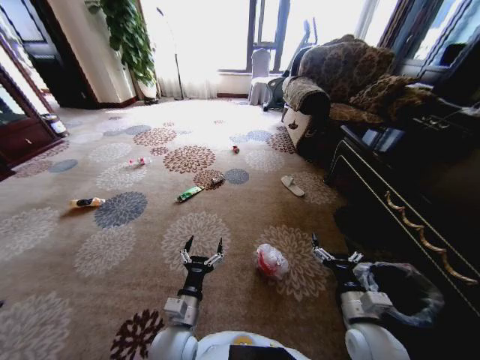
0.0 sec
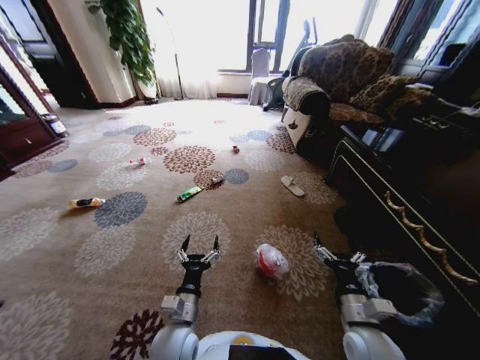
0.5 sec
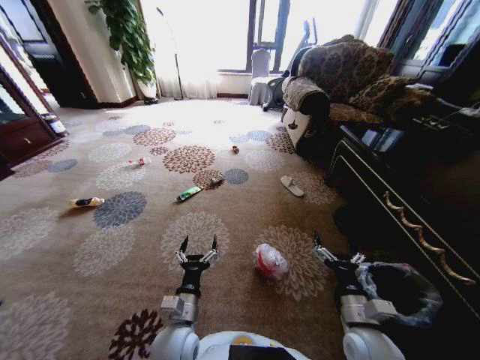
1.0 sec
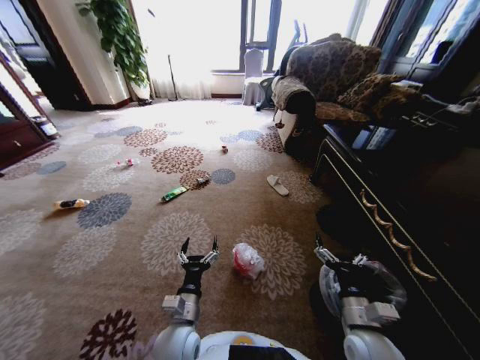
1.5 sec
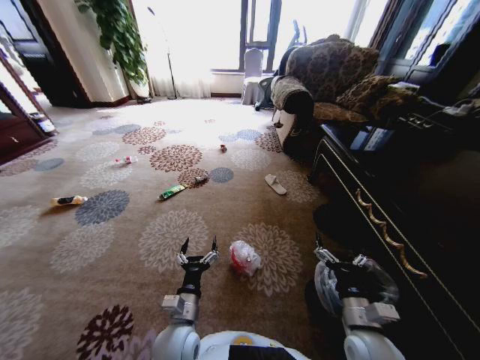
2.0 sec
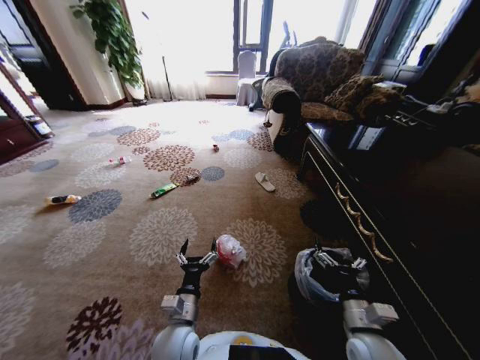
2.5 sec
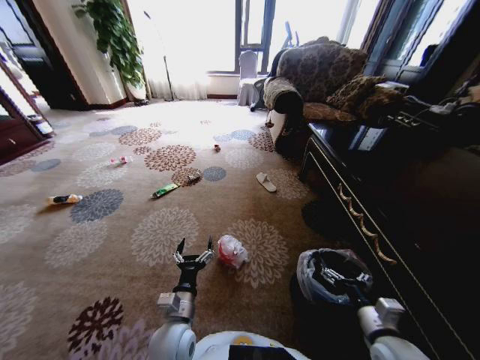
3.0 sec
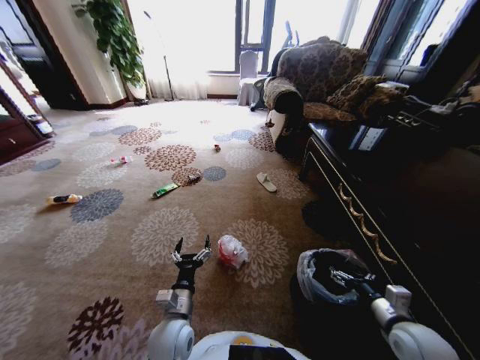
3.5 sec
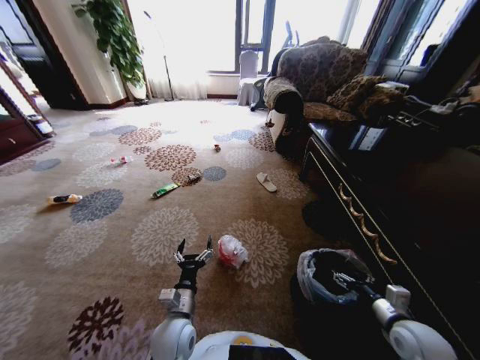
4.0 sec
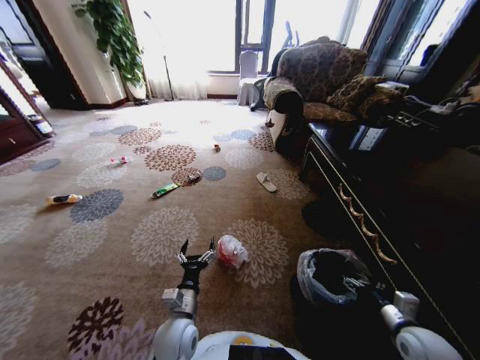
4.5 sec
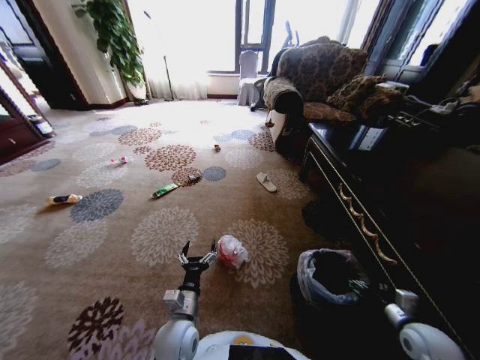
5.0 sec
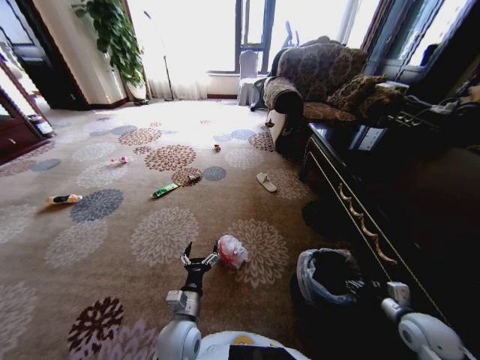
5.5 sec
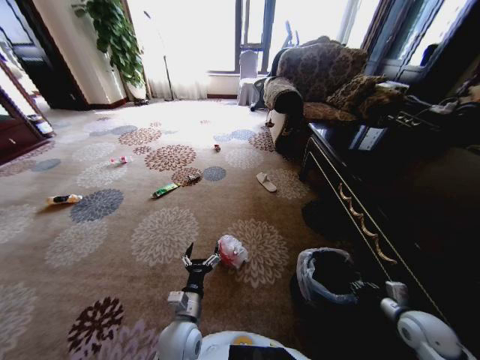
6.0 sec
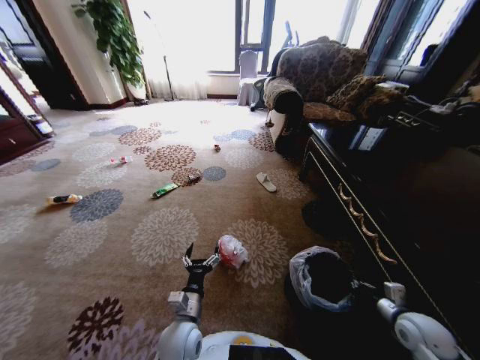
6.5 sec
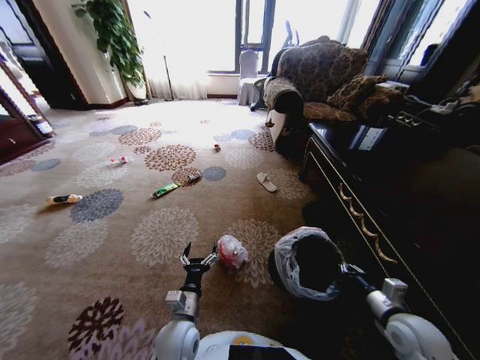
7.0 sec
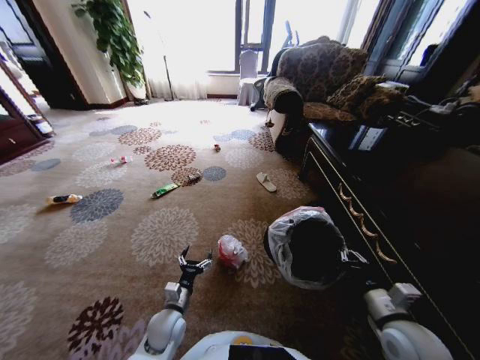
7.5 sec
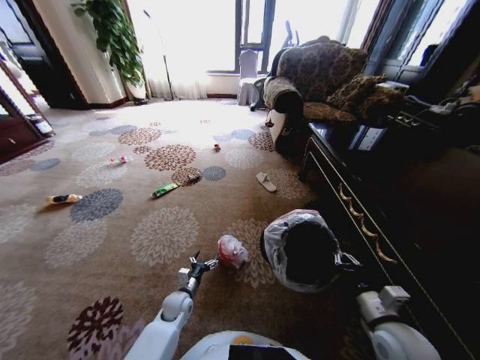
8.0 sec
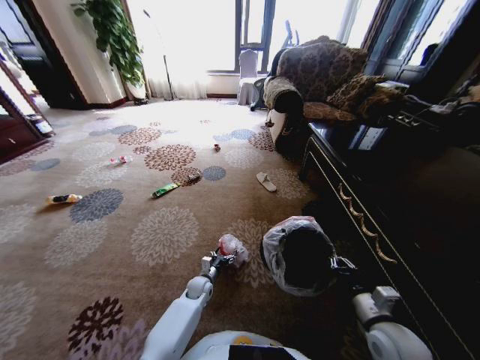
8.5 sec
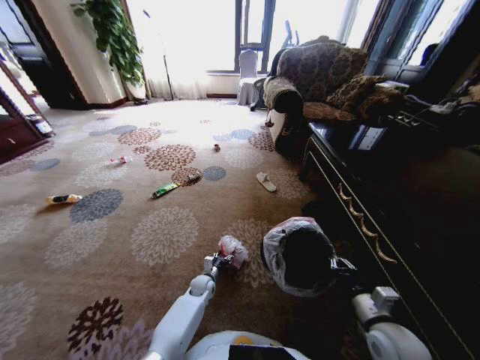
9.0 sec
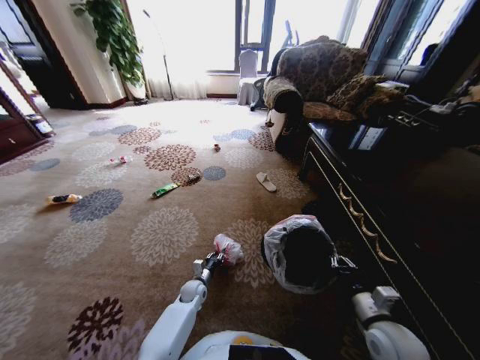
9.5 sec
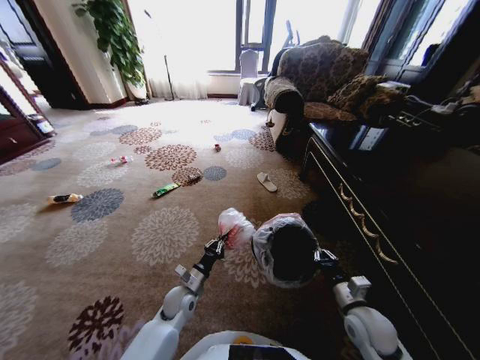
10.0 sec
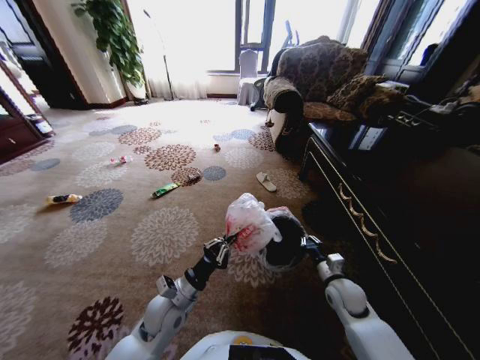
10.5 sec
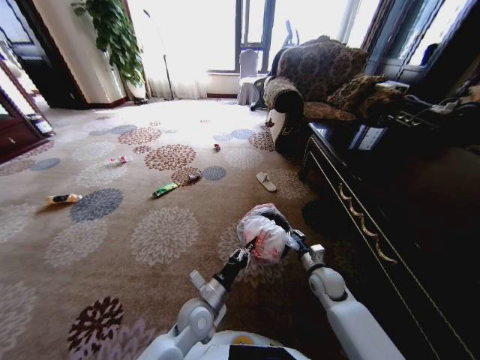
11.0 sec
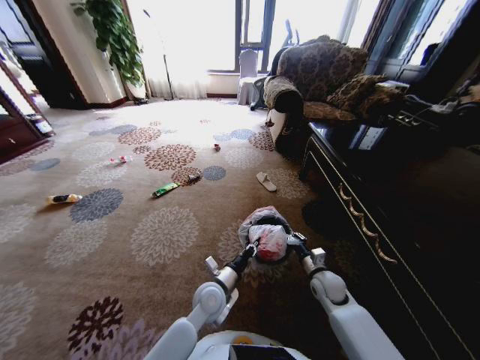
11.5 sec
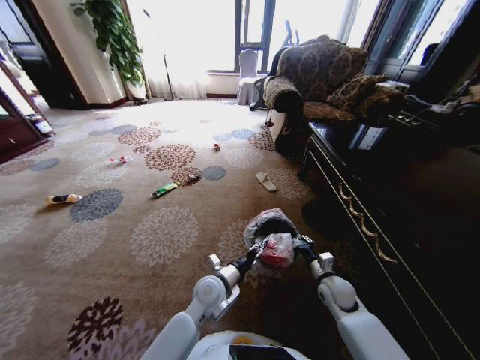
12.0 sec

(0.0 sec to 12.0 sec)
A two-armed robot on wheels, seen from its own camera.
Task of the whole recording: Pick up the trash from the ground and place it into the trash bin.
2.0 sec - 4.0 sec: The right gripper shifts approximately 15 cm to the right.
4.0 sec - 6.0 sec: The right gripper is displaced to the right by roughly 5 cm, and closes its fingers.
6.0 sec - 8.0 sec: The right gripper shifts about 15 cm to the left and upward; the left gripper heads downward, forward and to the left, covering about 20 cm.
8.0 sec - 10.0 sec: The right gripper travels downward by approximately 5 cm. Meanwhile the left gripper closes its fingers.
10.0 sec - 12.0 sec: The right gripper shifts about 10 cm forward and downward, while the left gripper travels upward and to the right by some 15 cm, and opens up.

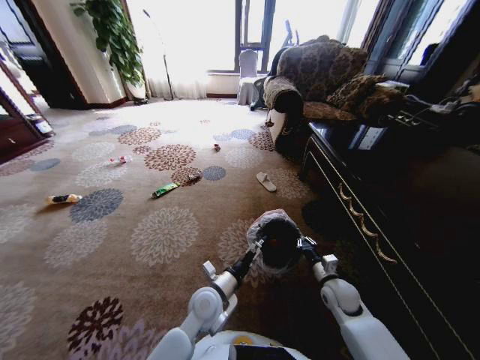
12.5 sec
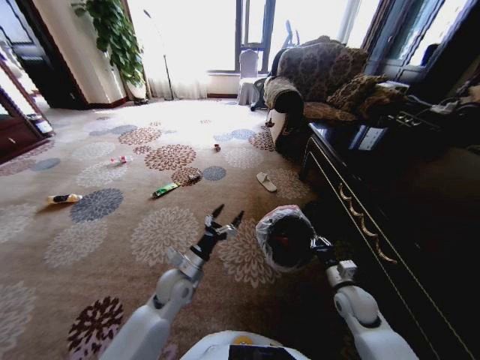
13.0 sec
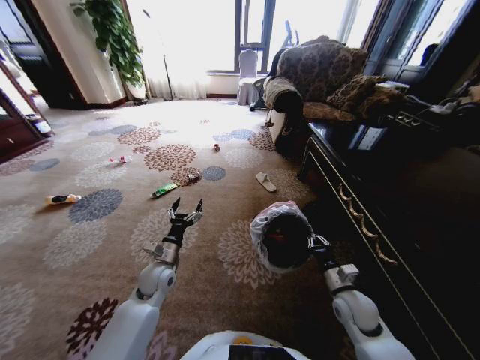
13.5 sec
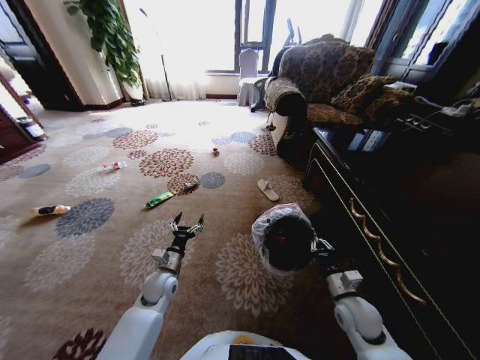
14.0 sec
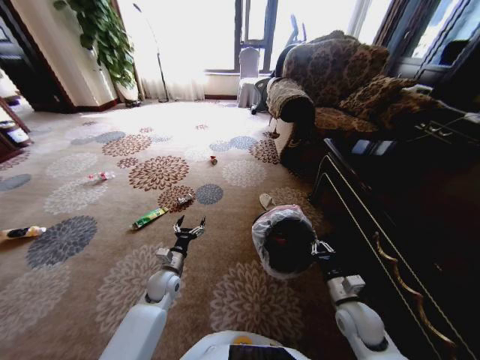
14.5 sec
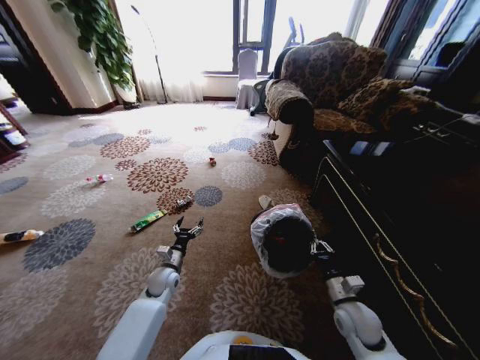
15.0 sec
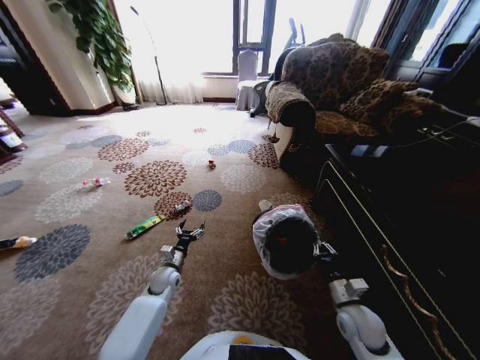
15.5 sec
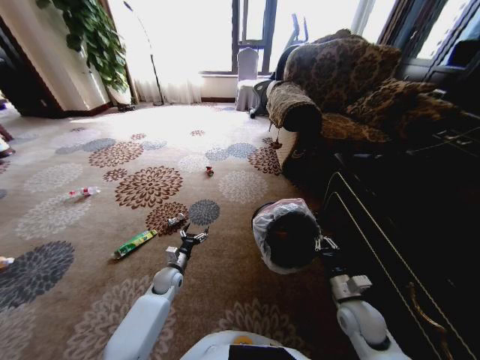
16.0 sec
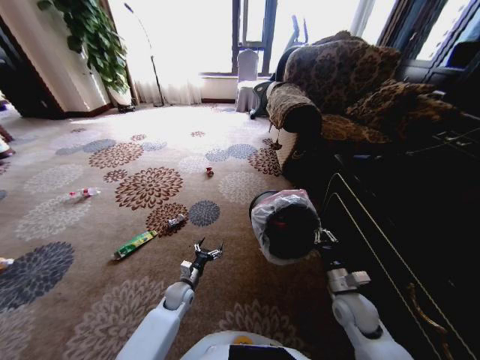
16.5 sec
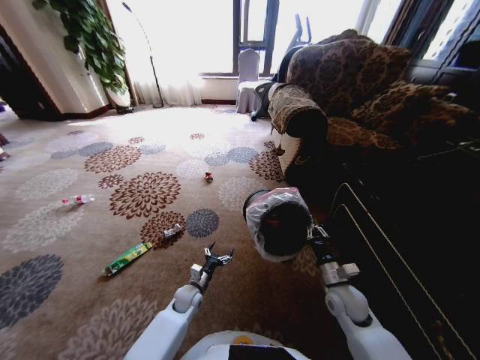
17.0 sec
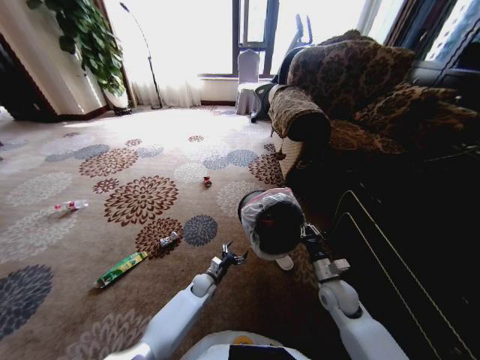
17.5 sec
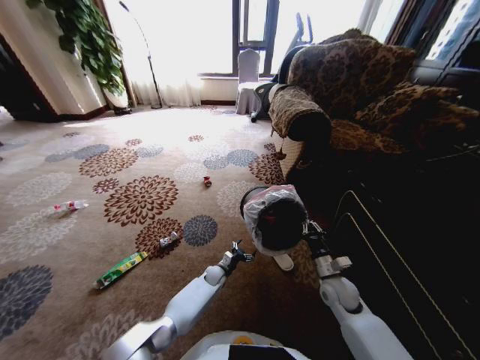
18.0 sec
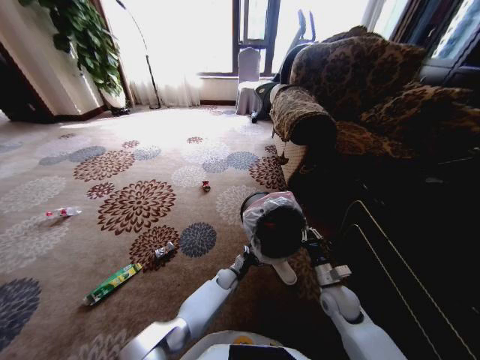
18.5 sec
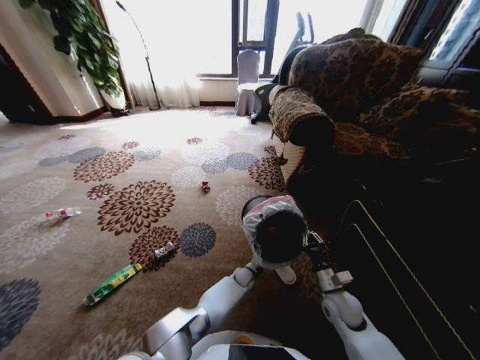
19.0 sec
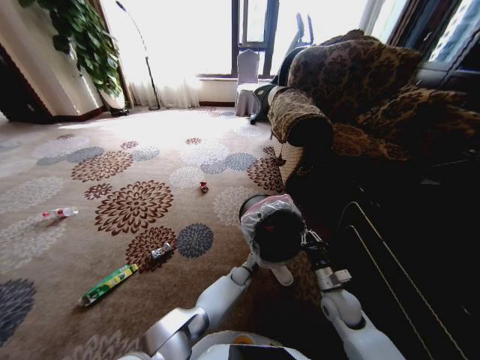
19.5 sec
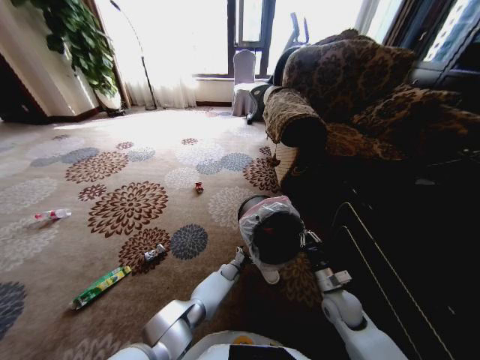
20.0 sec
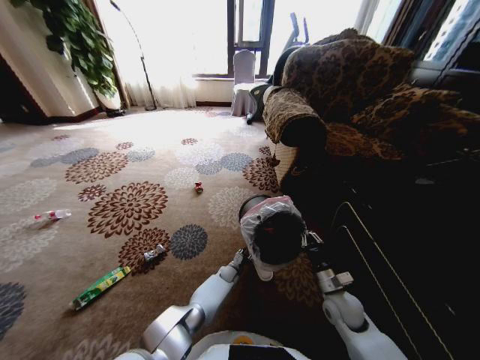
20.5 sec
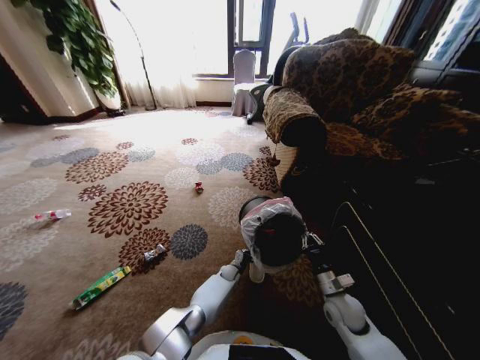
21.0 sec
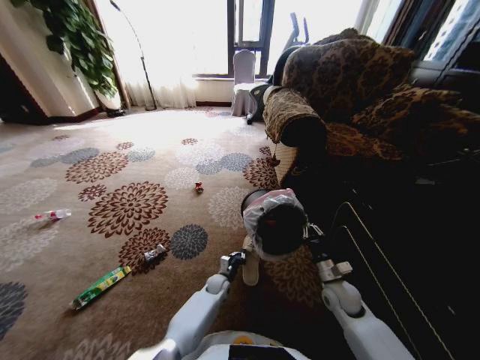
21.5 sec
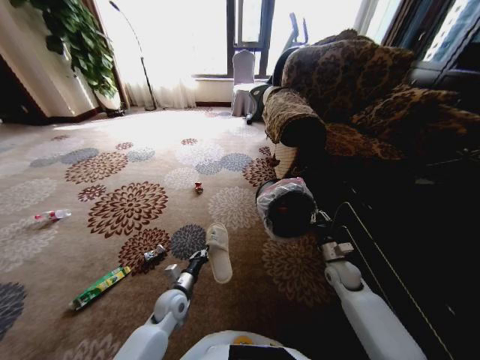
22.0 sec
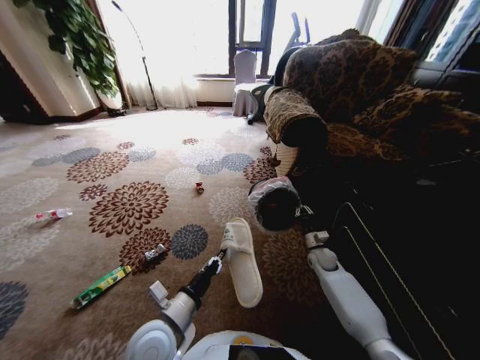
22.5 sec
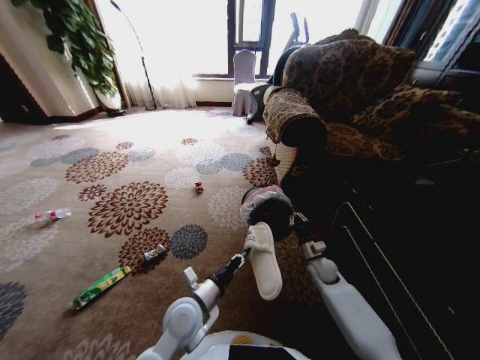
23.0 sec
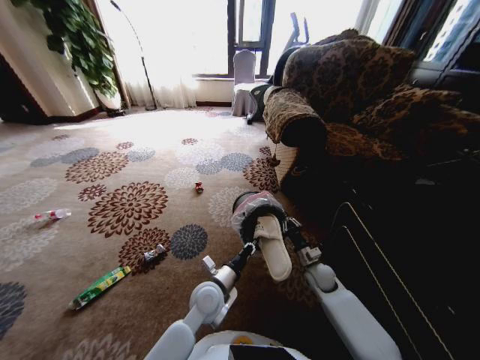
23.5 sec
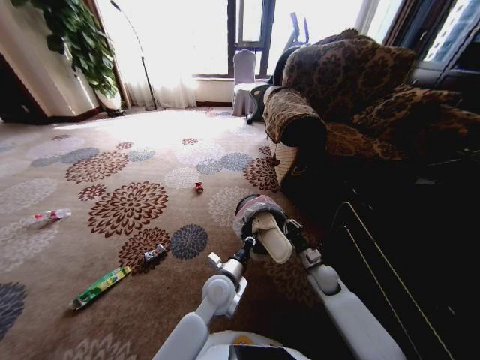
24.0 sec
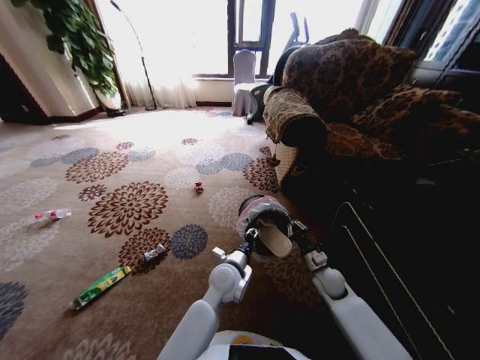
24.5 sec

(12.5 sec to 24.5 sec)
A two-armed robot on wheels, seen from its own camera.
Task of the whole recording: Pick up the trash from the ground and place it into the trash bin.
12.5 sec - 14.5 sec: The left gripper shifts approximately 15 cm to the left and forward, while the right gripper goes roughly 5 cm backward.
14.5 sec - 16.5 sec: The left gripper heads downward, covering approximately 10 cm.
16.5 sec - 18.5 sec: The left gripper moves to the right, forward and downward, roughly 20 cm.
18.5 sec - 20.5 sec: The left gripper moves approximately 10 cm to the right and comes back, and closes.
20.5 sec - 22.5 sec: The right gripper shifts some 15 cm forward, while the left gripper shifts some 40 cm upward and backward, and closes its fingers.
22.5 sec - 24.5 sec: The right gripper is displaced backward by roughly 10 cm. Meanwhile the left gripper goes some 20 cm forward and to the right, and opens.

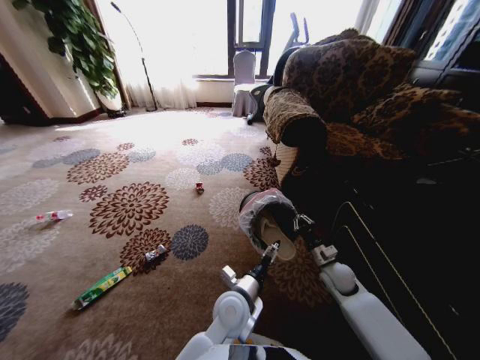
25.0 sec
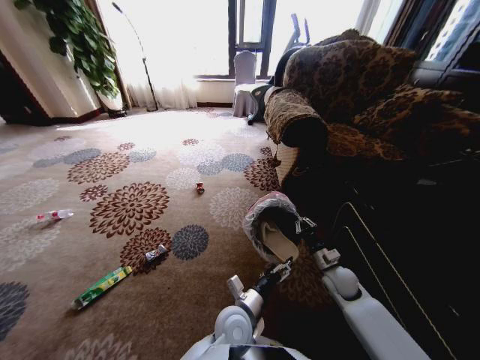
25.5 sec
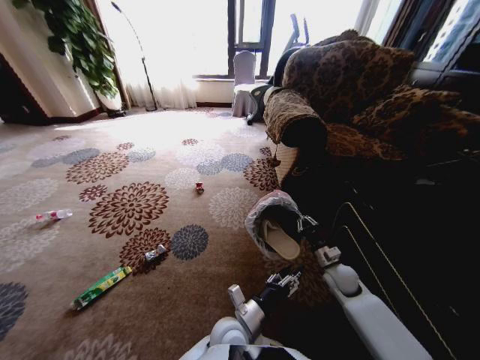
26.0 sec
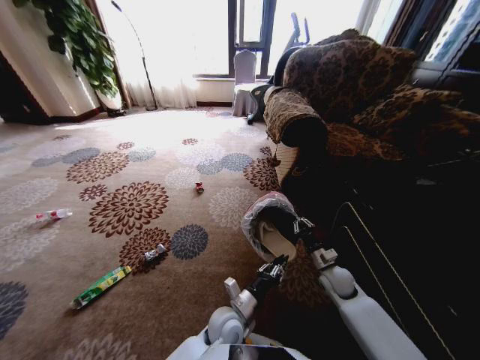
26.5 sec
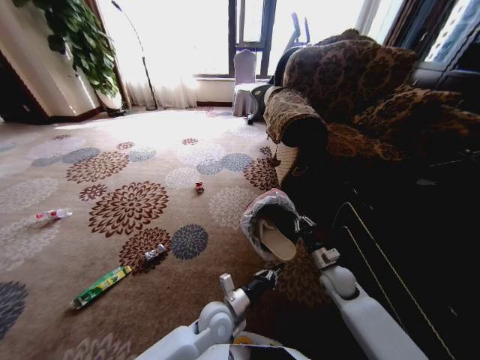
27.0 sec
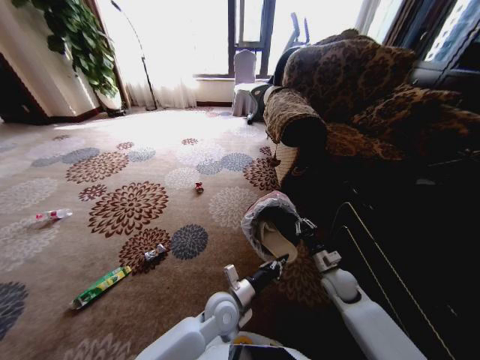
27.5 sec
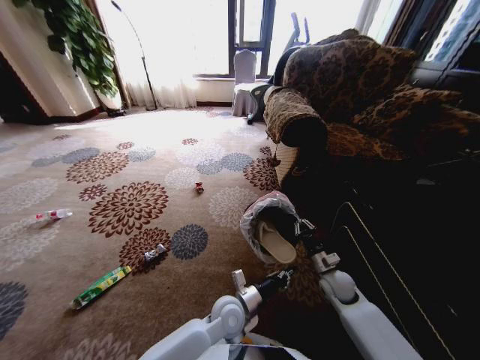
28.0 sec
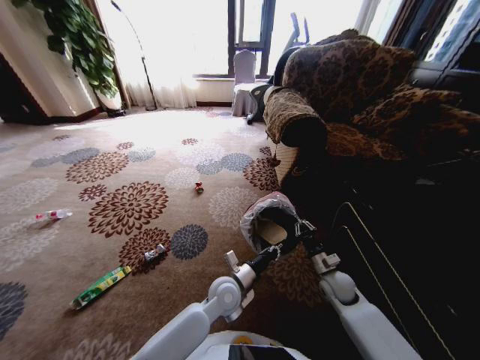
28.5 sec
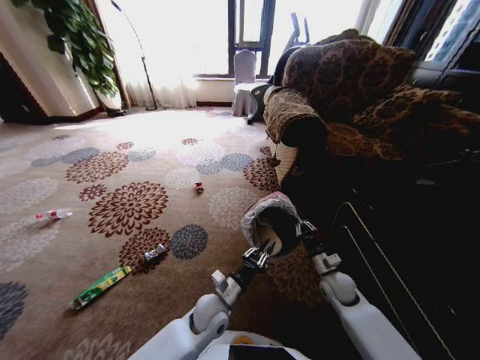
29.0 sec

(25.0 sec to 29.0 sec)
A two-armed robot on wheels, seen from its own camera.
Task of the whole recording: Pick up the trash from the ground and place it into the trash bin.
25.0 sec - 27.0 sec: The left gripper heads downward, covering some 5 cm, and closes up.
